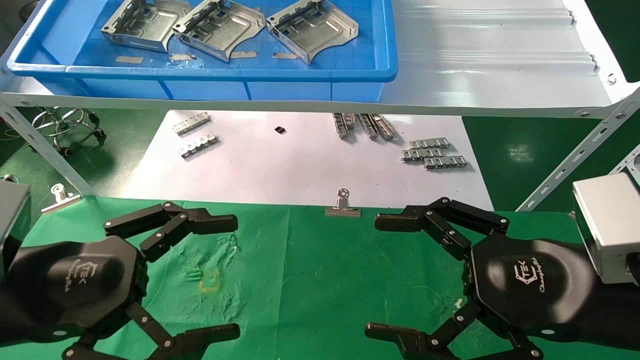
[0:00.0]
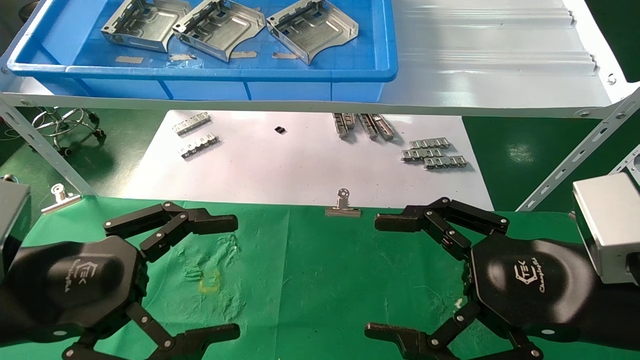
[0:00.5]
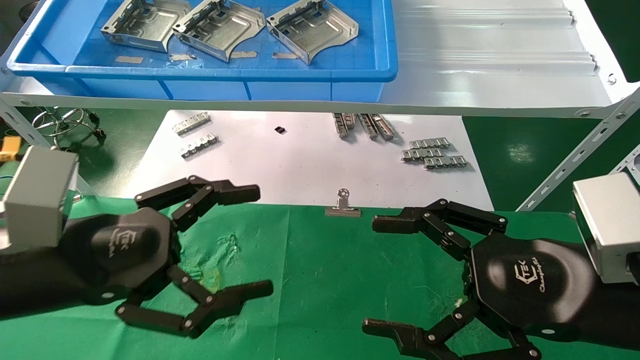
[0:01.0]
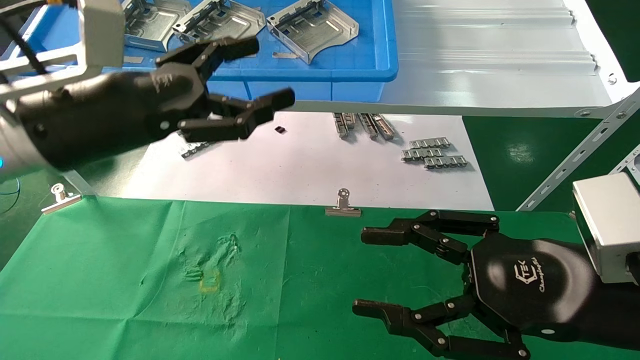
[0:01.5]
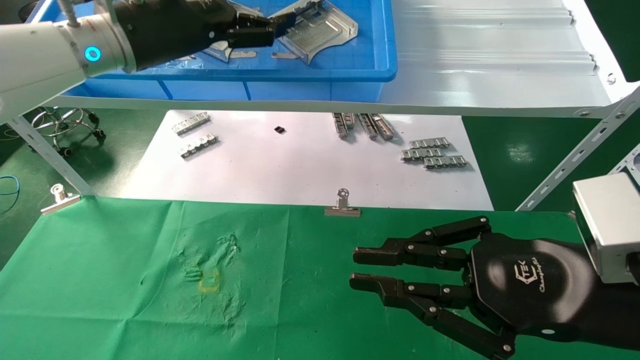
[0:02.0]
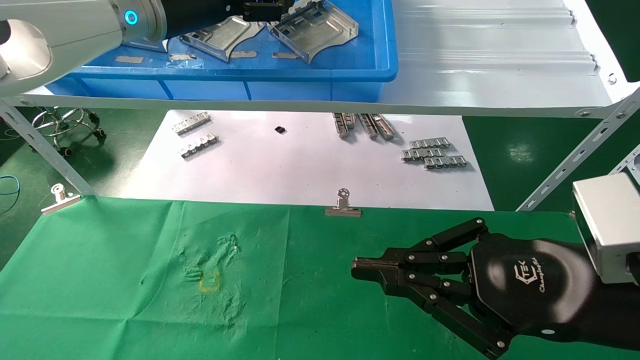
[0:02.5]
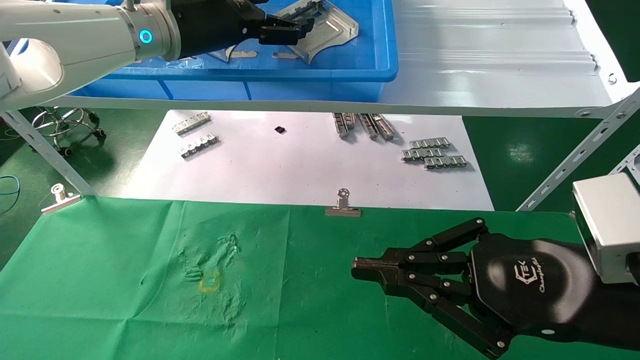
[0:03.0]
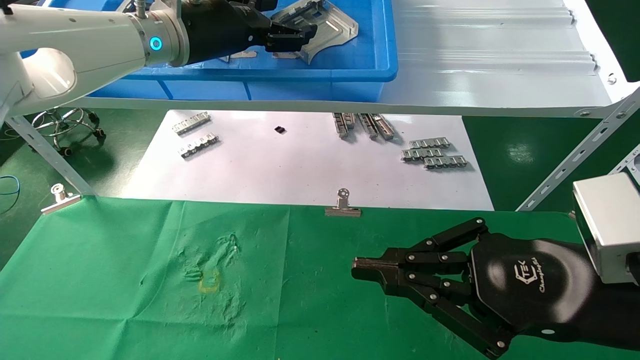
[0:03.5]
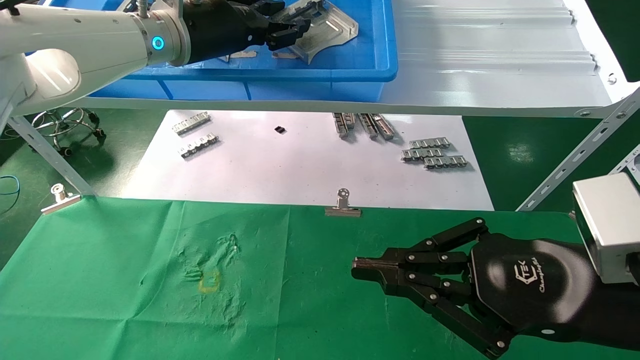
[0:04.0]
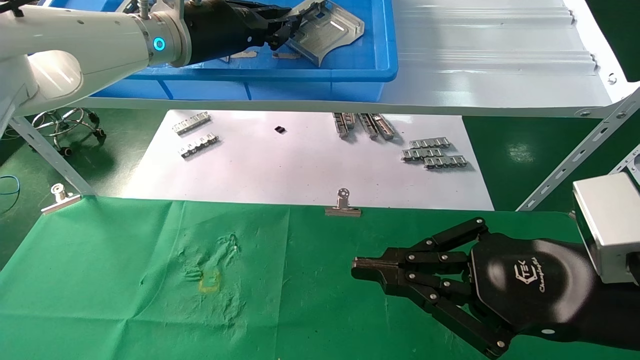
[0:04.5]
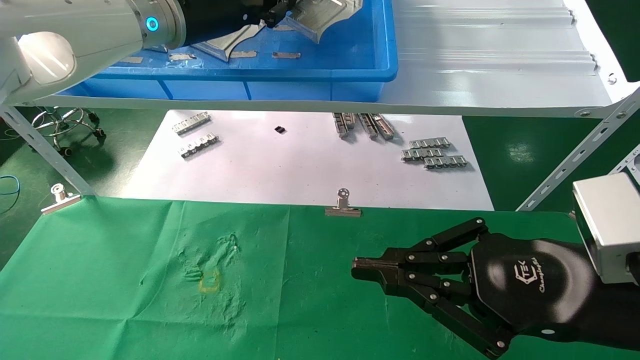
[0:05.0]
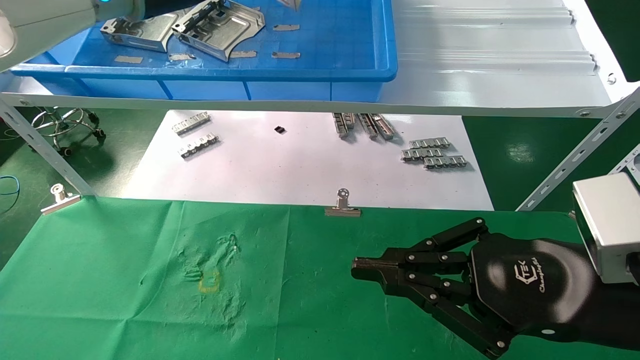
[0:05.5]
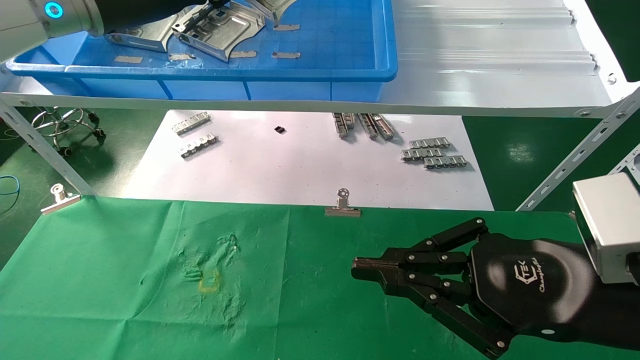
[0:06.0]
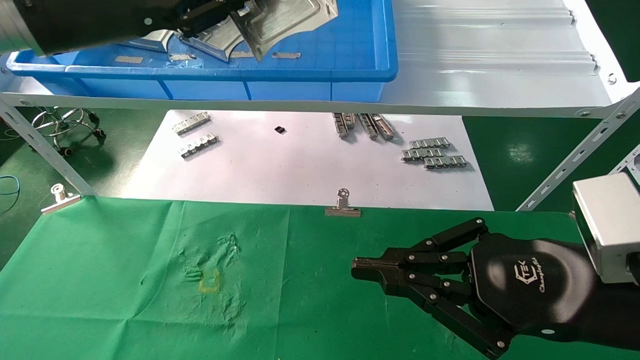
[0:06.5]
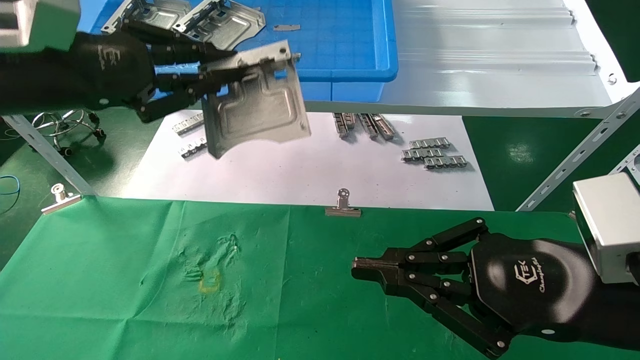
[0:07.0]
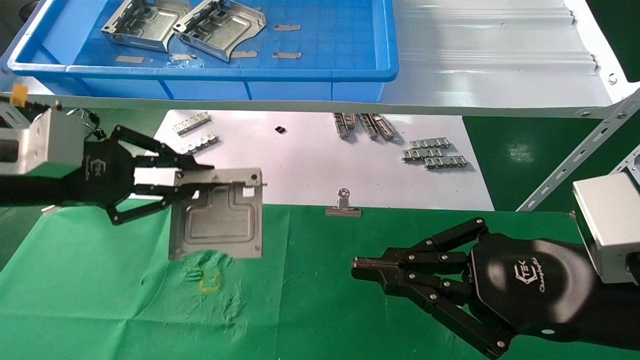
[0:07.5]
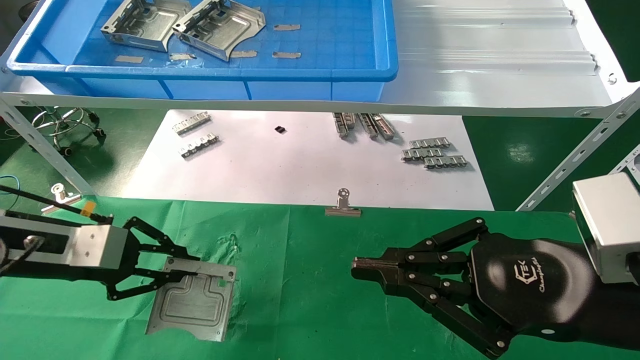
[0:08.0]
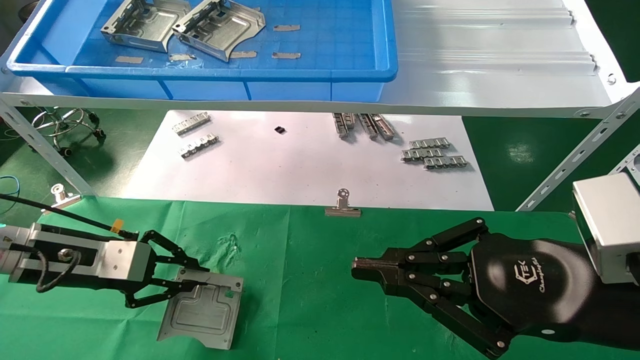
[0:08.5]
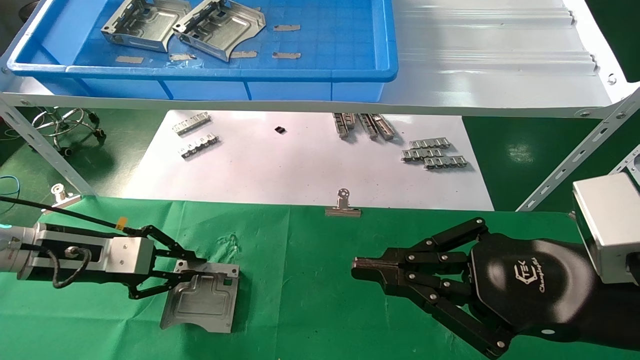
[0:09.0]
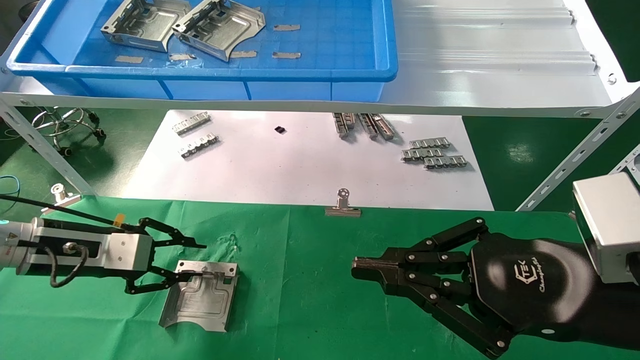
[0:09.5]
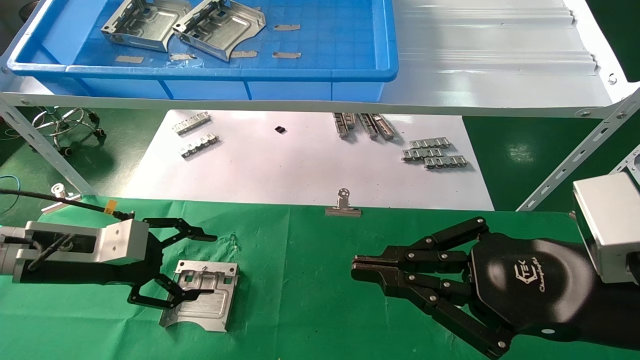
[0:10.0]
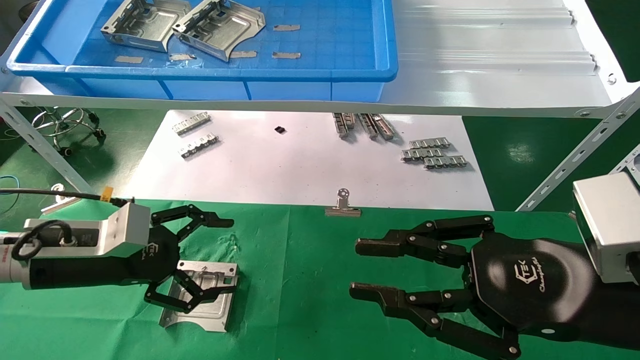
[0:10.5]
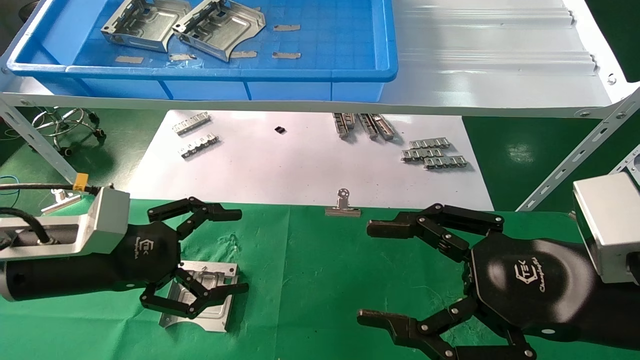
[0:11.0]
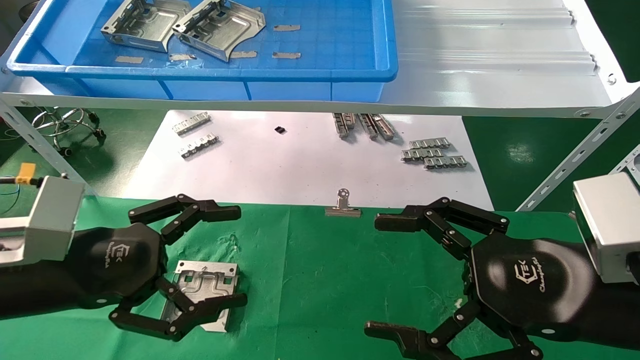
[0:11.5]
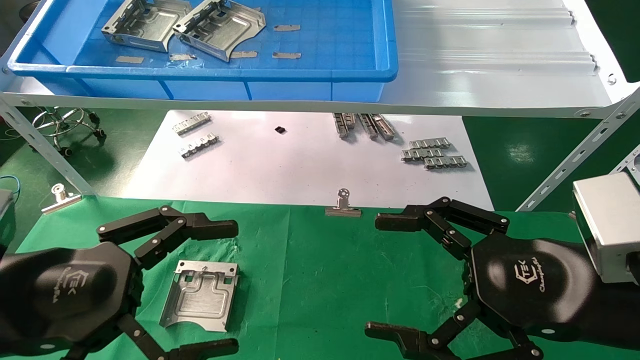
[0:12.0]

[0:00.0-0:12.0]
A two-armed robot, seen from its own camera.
Task of the whole recording: use the mechanical arm to pick up the parts and place them on the table.
Step, 0:01.5 to 0:04.5: Pick up the hard drive bracket from the feeding area.
Step, 0:05.0 to 0:09.0: Place the hard drive bracket into the box.
0:00.0 to 0:02.0: The left gripper shifts some 30 cm forward and upward. The right gripper closes.
0:02.0 to 0:04.0: The left gripper changes place by about 5 cm, and closes.
0:04.0 to 0:06.0: The left gripper heads to the left, covering approximately 5 cm, and closes its fingers.
0:06.0 to 0:08.0: The left gripper moves downward and to the left, approximately 25 cm.
0:08.0 to 0:10.0: The left gripper opens.
0:10.0 to 0:12.0: The left gripper heads backward, covering roughly 15 cm, and opens up. Meanwhile the right gripper opens up.
